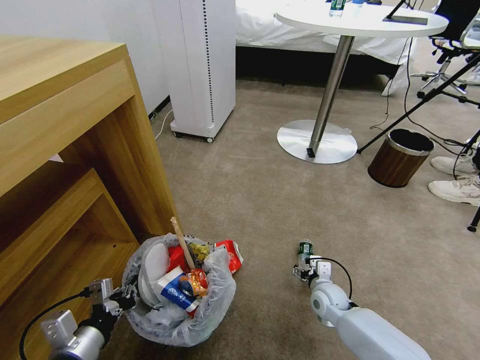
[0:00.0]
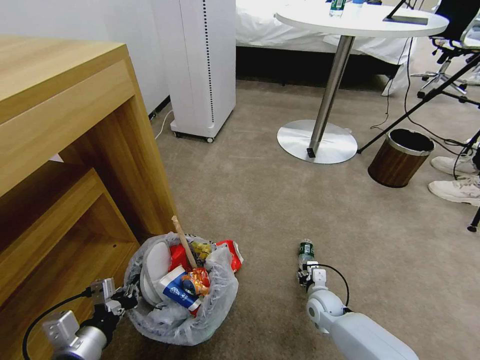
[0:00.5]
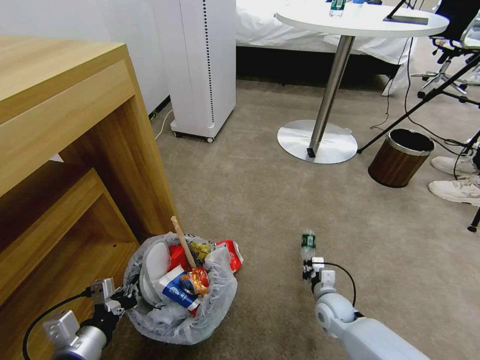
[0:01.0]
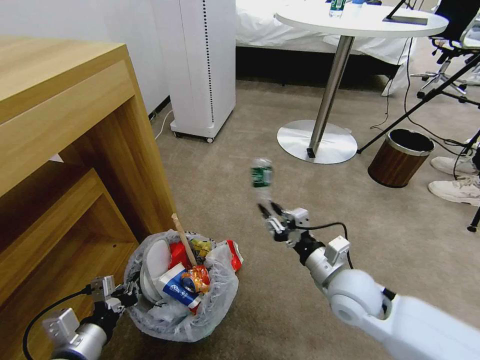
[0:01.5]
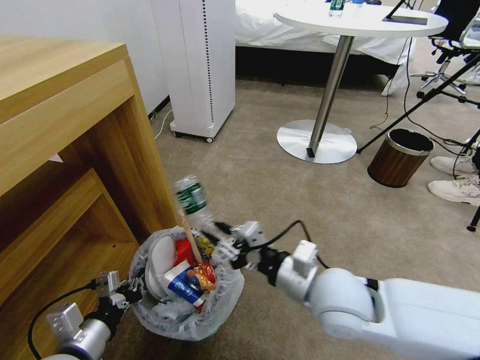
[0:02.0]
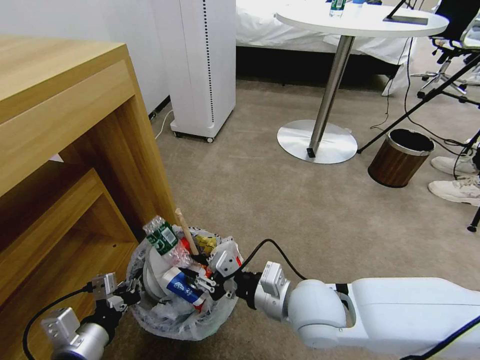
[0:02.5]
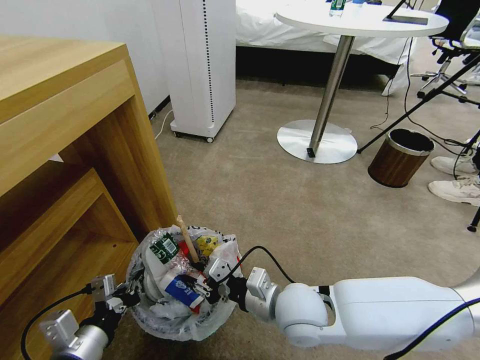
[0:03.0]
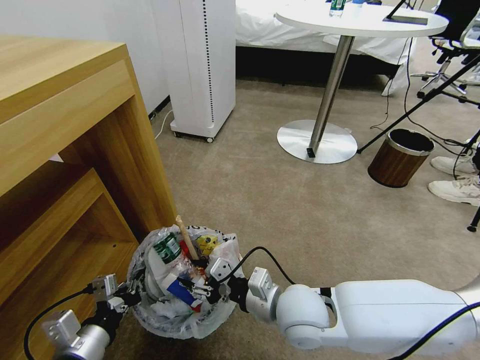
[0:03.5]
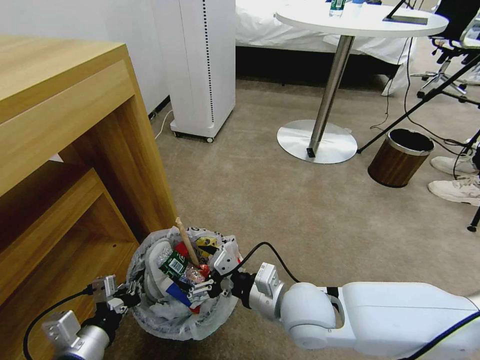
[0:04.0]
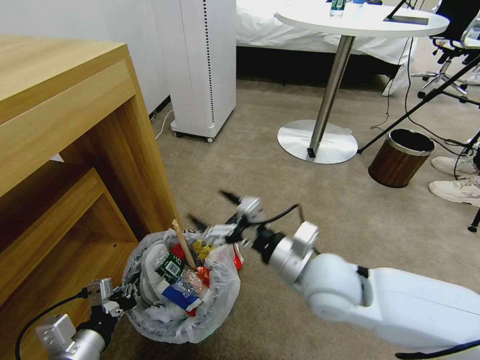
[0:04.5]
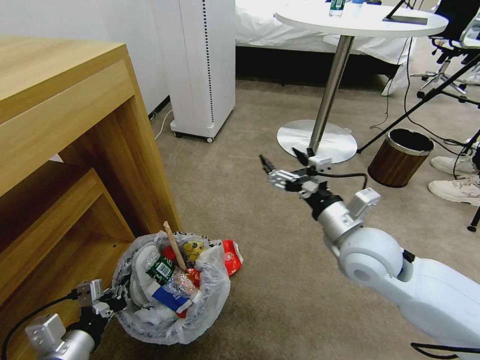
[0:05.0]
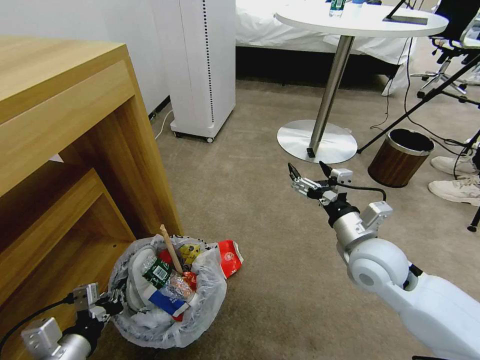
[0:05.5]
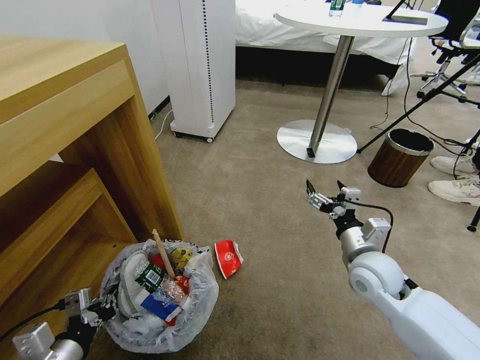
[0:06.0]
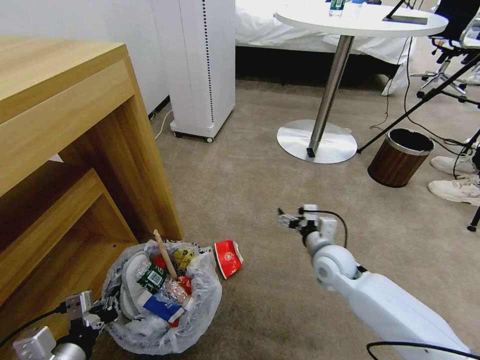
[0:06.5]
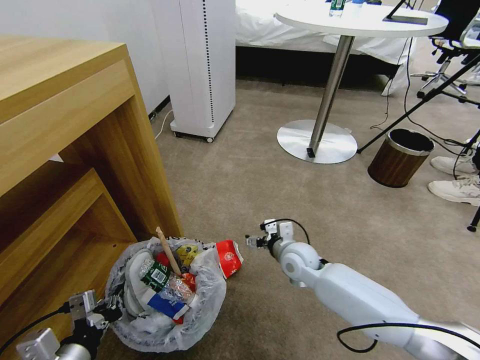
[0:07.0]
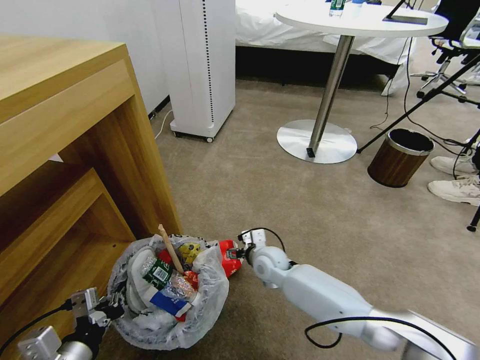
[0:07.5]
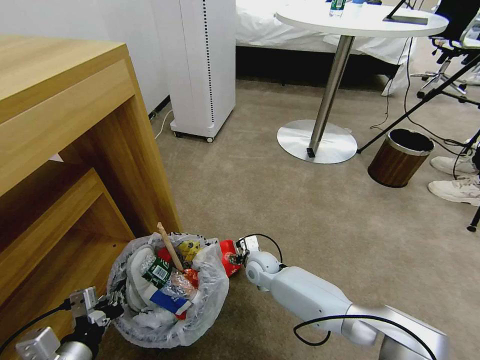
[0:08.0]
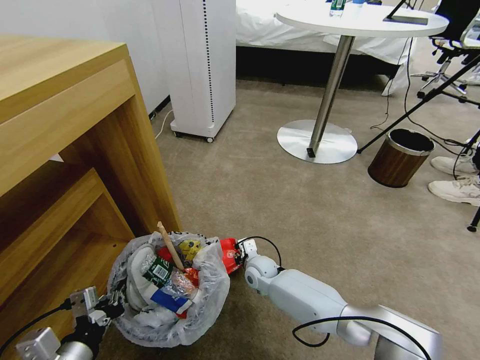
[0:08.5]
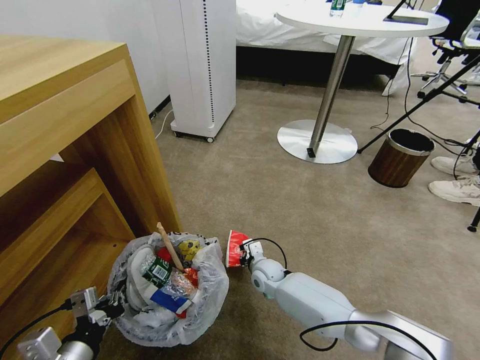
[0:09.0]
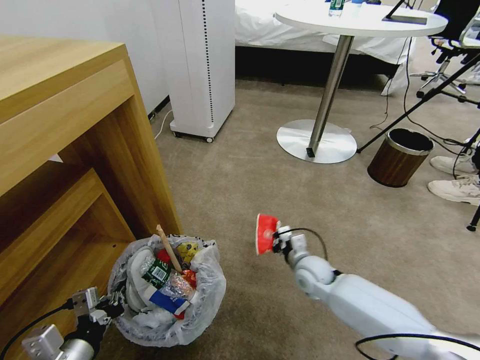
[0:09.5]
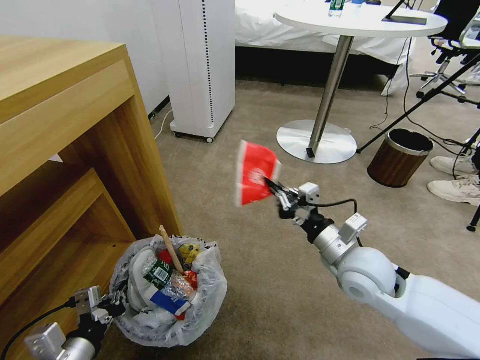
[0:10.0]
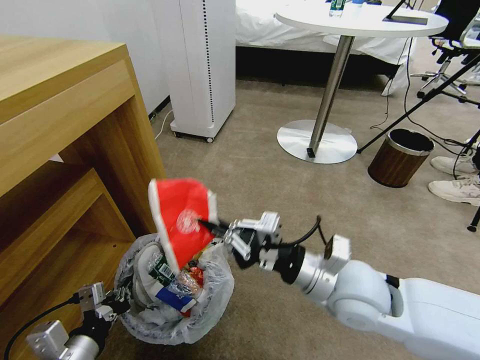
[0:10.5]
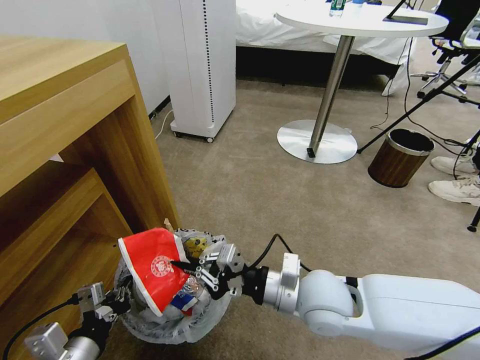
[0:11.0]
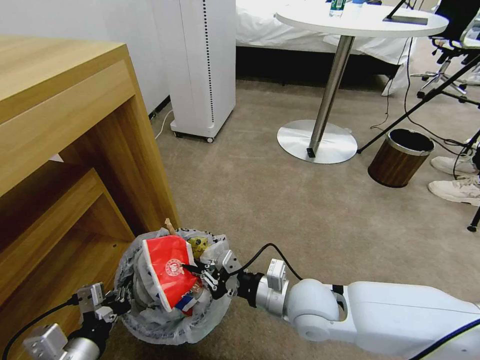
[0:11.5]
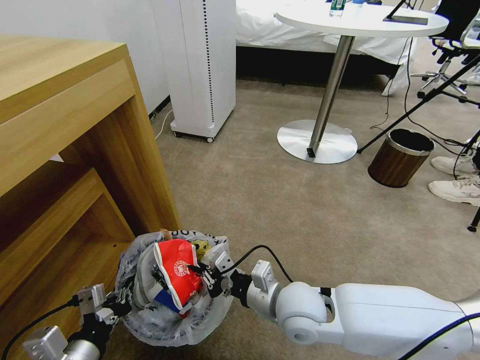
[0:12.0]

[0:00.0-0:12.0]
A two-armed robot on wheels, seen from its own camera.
Task of the whole recording: Pick up the trash bin and place the garbage on the floor into it.
0:00.0 to 0:02.0: The right gripper travels upward by approximately 25 cm, and closes its fingers.
0:02.0 to 0:04.0: The right gripper changes place by approximately 5 cm, and opens its fingers.
0:04.0 to 0:06.0: The right gripper is displaced to the right and forward by about 20 cm.
0:06.0 to 0:08.0: The right gripper moves to the left, downward and forward, some 30 cm.
0:08.0 to 0:10.0: The right gripper is displaced upward, to the right and backward by roughly 30 cm, and closes.
0:10.0 to 0:12.0: The right gripper travels to the left and downward by about 15 cm.

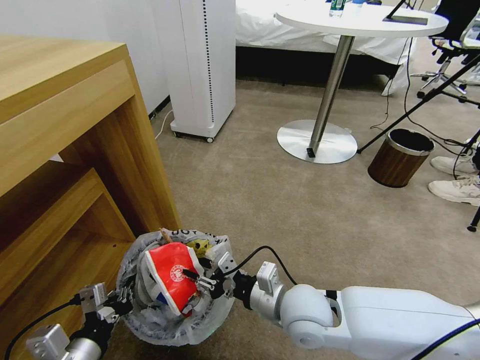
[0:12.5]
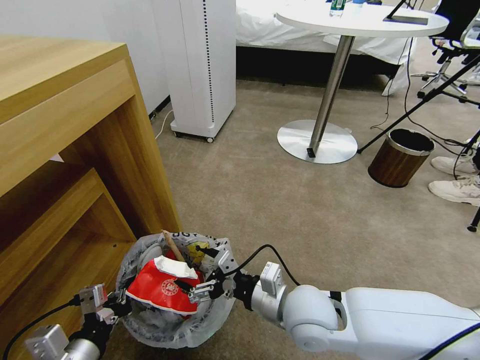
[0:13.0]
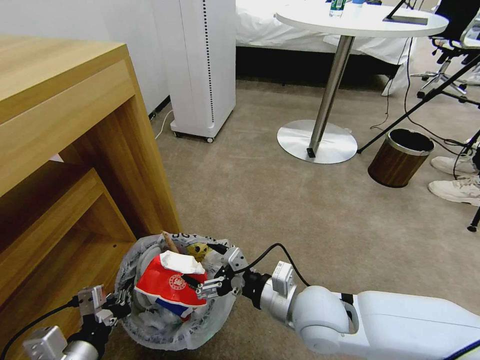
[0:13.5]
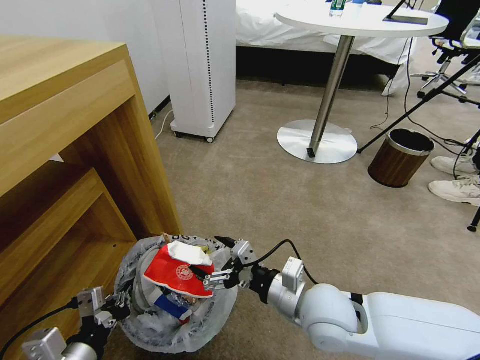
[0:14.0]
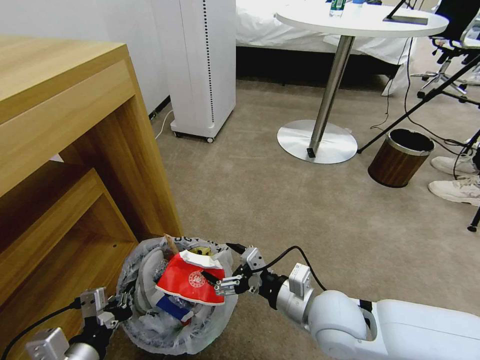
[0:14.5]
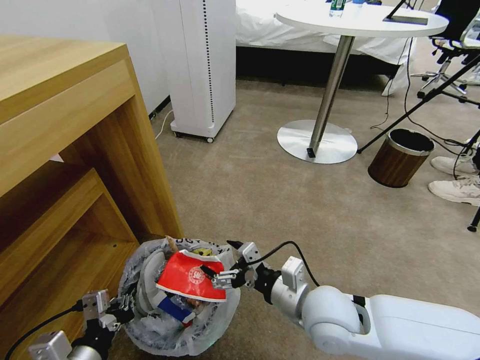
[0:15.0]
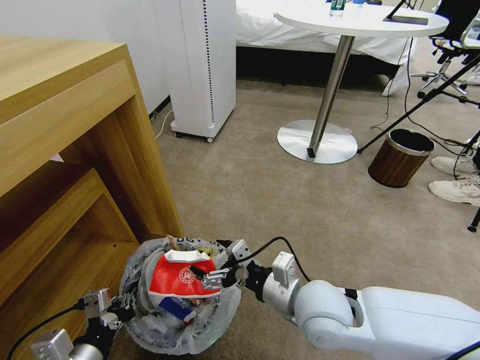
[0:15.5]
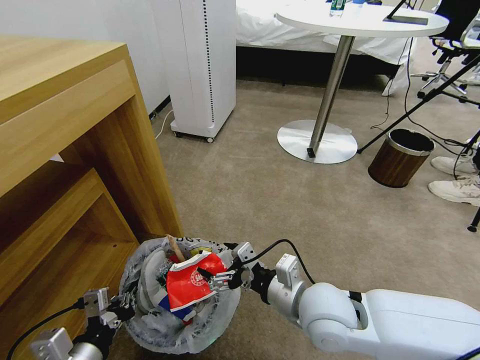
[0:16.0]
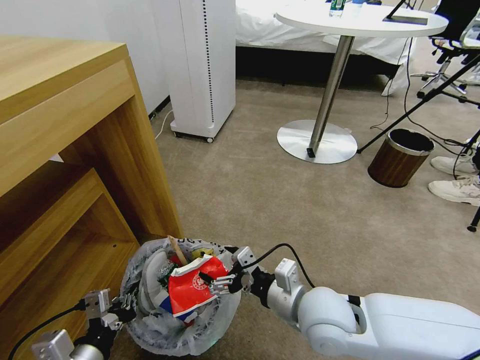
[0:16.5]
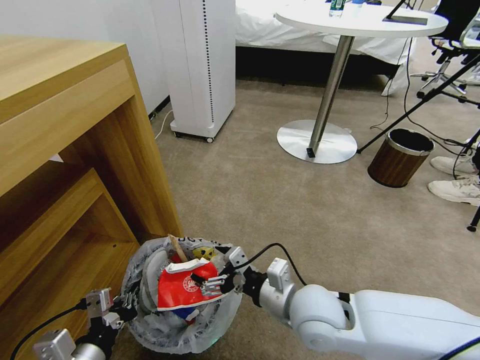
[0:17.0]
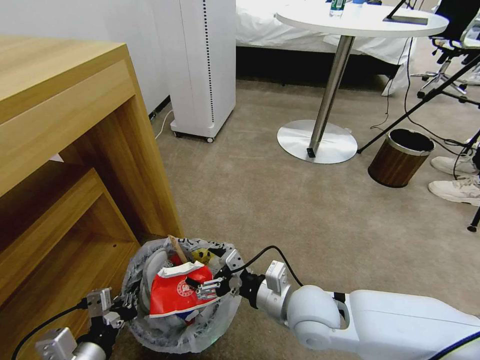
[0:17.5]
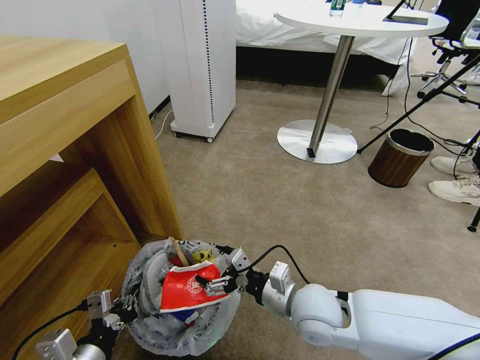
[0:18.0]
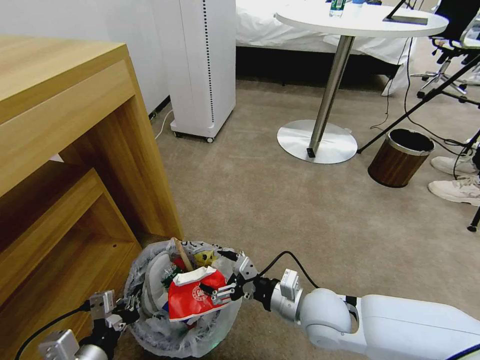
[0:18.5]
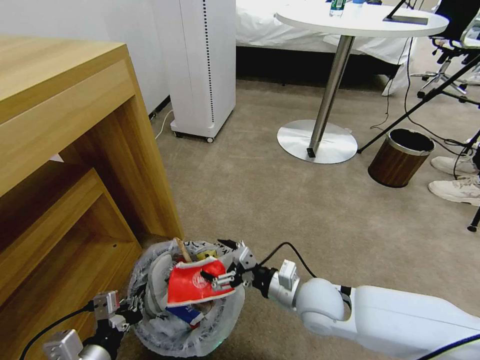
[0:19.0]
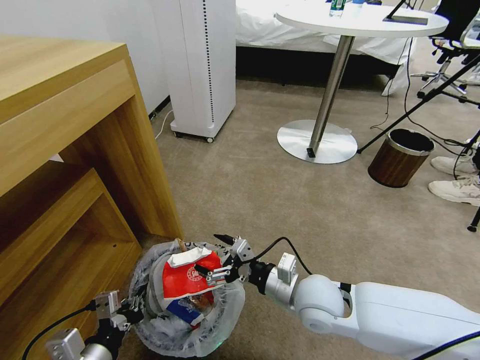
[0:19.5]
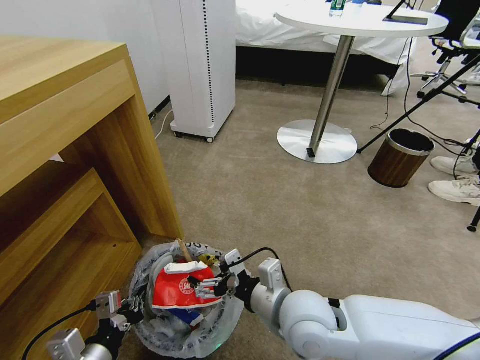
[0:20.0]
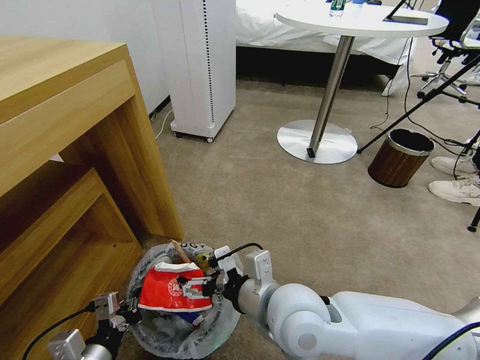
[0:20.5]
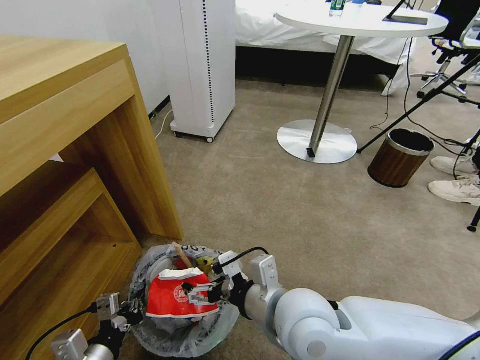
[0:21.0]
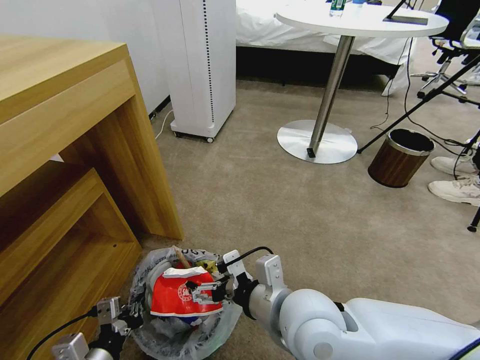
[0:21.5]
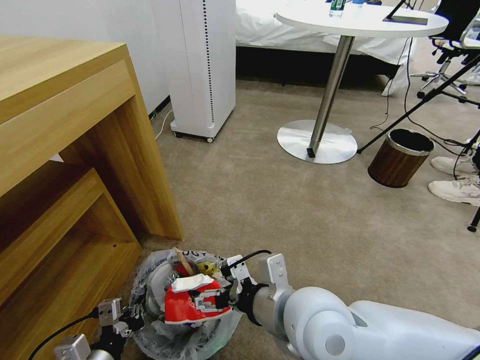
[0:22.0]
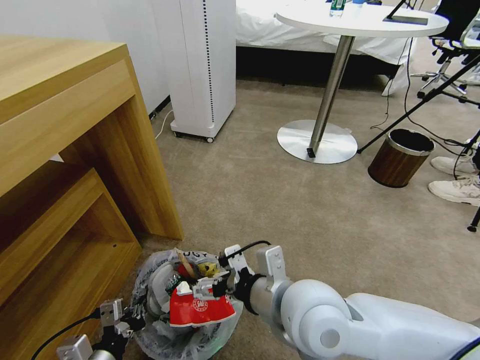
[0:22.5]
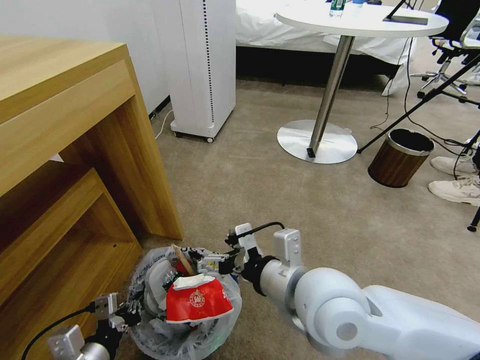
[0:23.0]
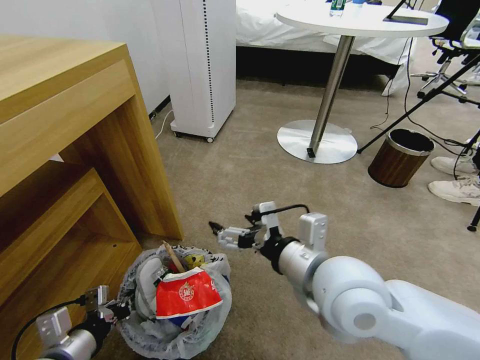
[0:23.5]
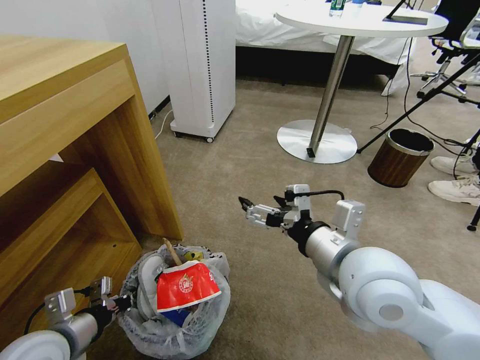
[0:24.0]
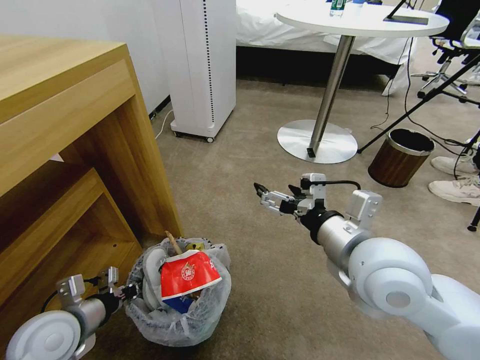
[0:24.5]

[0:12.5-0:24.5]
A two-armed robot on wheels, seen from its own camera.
Task of the whole recording: Pick up the trash bin and place the garbage on the floor into it.
0:12.5 to 0:14.5: The right gripper changes place by approximately 5 cm, and opens.
0:14.5 to 0:16.5: There are only small adjustments of the grippers.
0:16.5 to 0:18.5: The right gripper travels downward by some 5 cm.
0:18.5 to 0:20.5: The right gripper is displaced upward and to the left by about 15 cm.
0:20.5 to 0:22.5: There are only small adjustments of the grippers.
0:22.5 to 0:24.5: The left gripper moves forward and to the left, roughly 10 cm. Meanwhile the right gripper travels to the right and upward by approximately 10 cm.

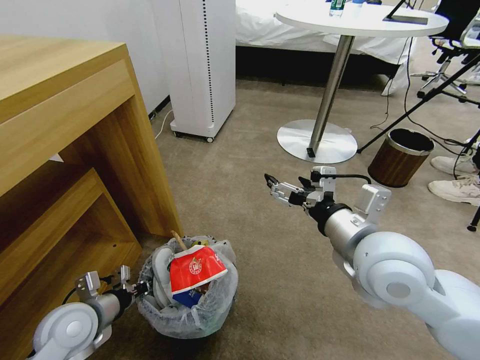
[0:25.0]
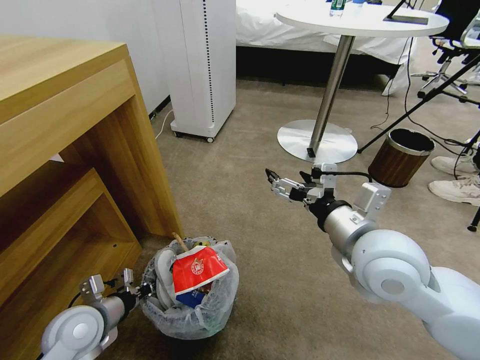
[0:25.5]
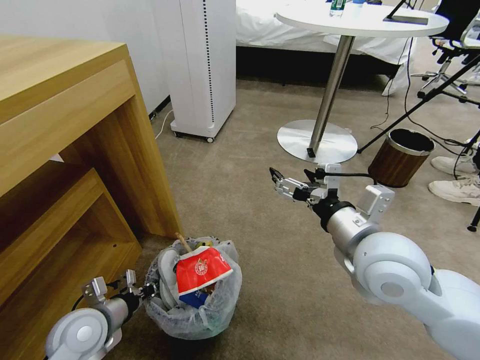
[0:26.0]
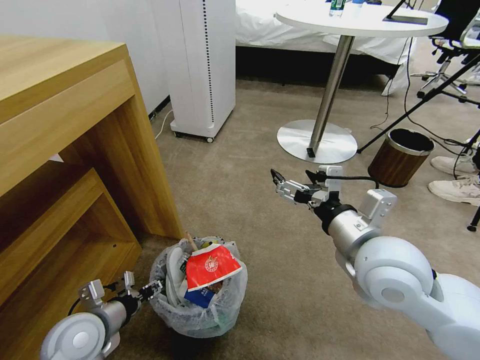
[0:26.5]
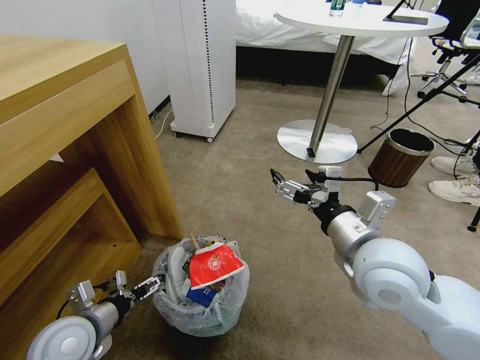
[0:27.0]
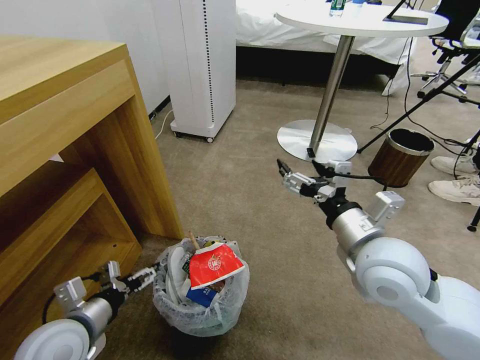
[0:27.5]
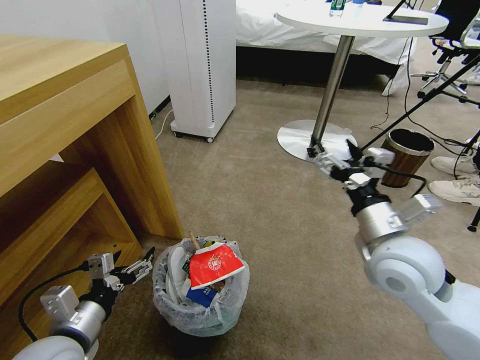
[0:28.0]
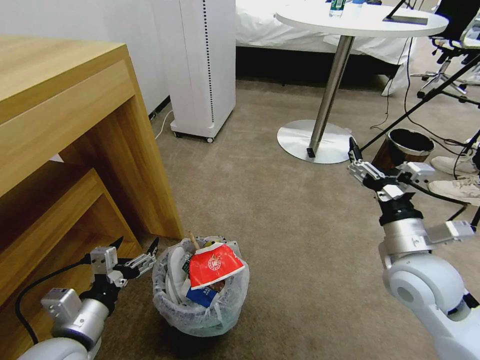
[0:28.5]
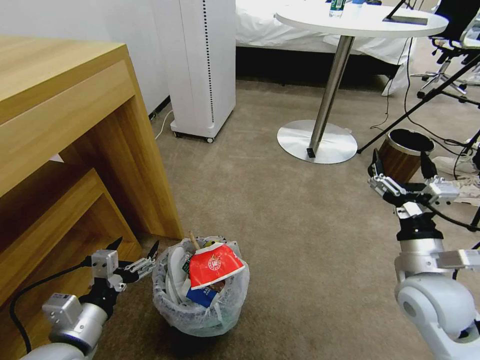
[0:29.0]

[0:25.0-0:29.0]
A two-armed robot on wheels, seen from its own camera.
Task of the whole recording: Pick up the trash bin and place the garbage on the floor into it.
0:25.0 to 0:27.0: The left gripper opens its fingers.
0:27.0 to 0:29.0: The left gripper moves roughly 5 cm. Meanwhile the right gripper goes roughly 15 cm to the right and downward.
